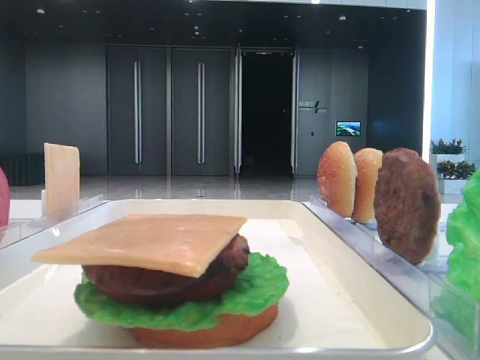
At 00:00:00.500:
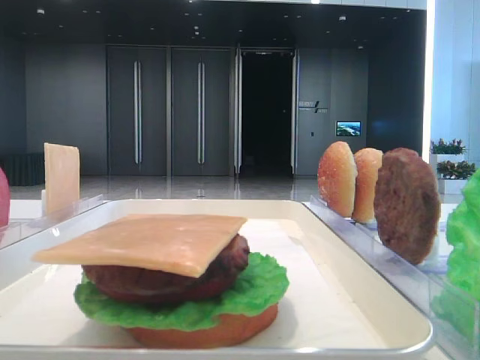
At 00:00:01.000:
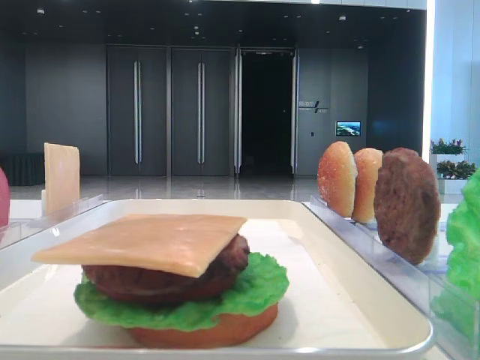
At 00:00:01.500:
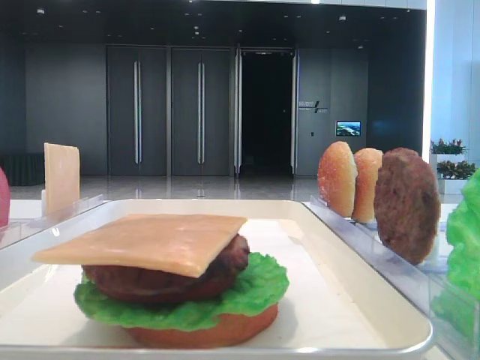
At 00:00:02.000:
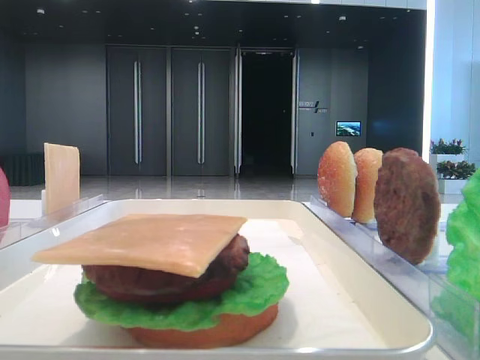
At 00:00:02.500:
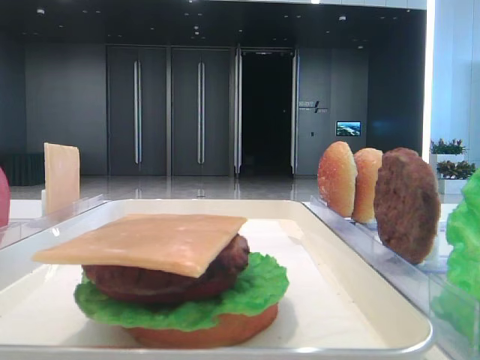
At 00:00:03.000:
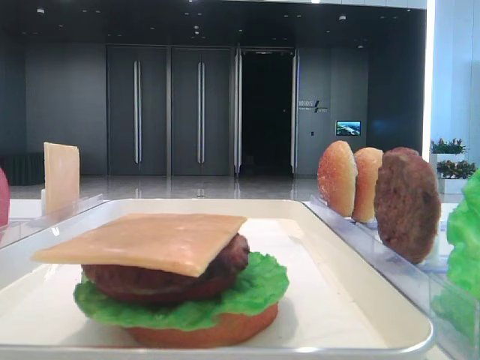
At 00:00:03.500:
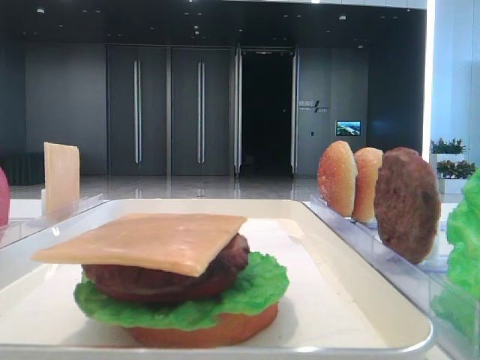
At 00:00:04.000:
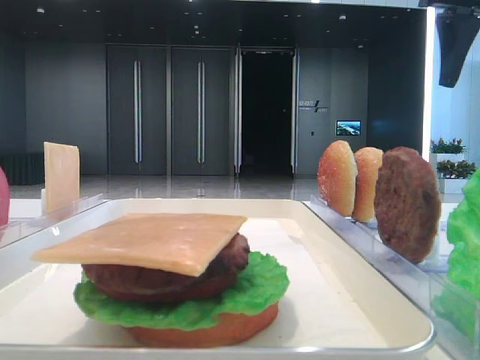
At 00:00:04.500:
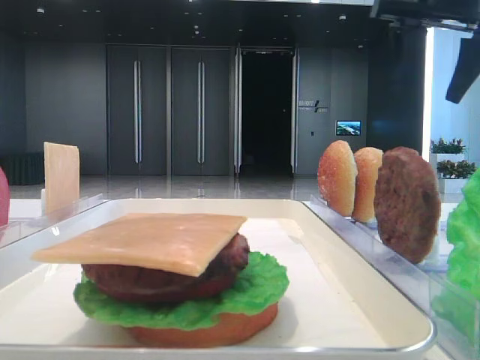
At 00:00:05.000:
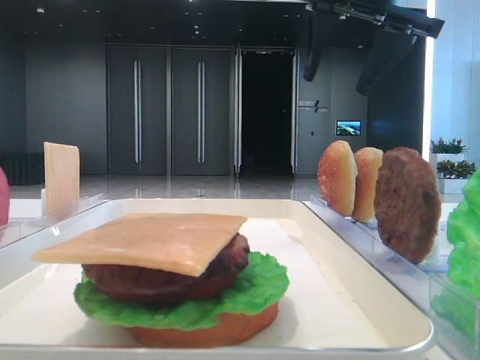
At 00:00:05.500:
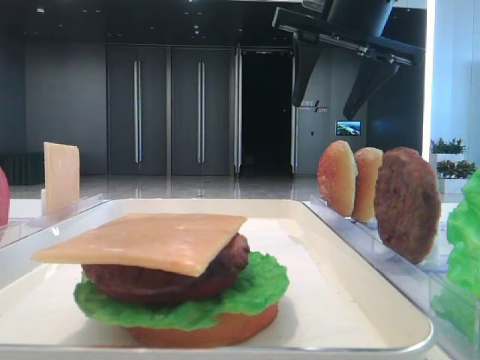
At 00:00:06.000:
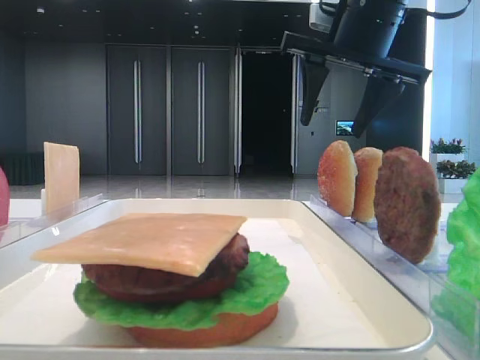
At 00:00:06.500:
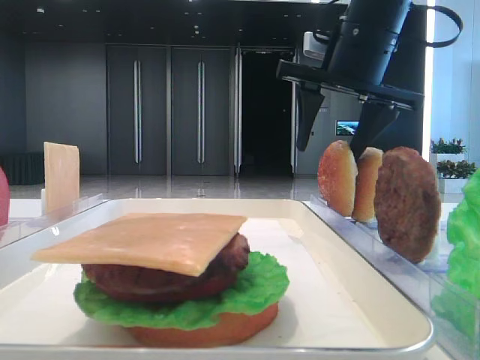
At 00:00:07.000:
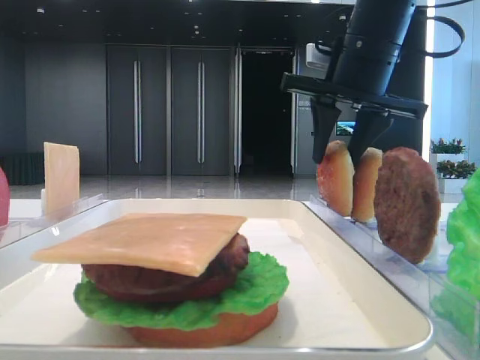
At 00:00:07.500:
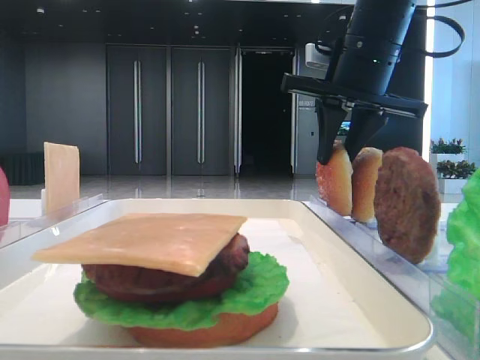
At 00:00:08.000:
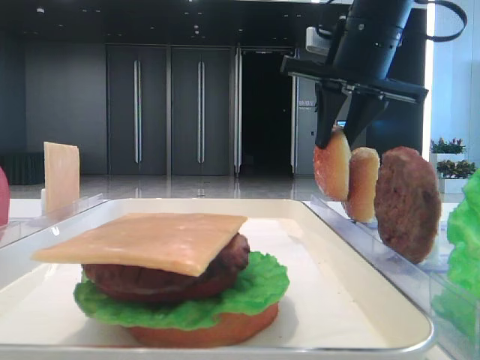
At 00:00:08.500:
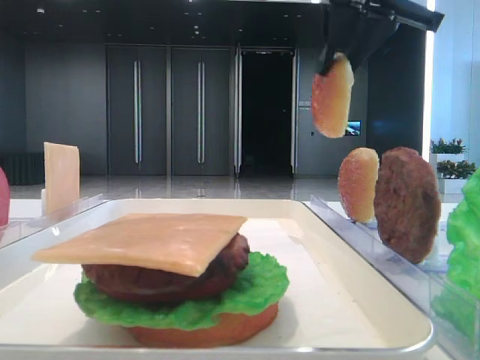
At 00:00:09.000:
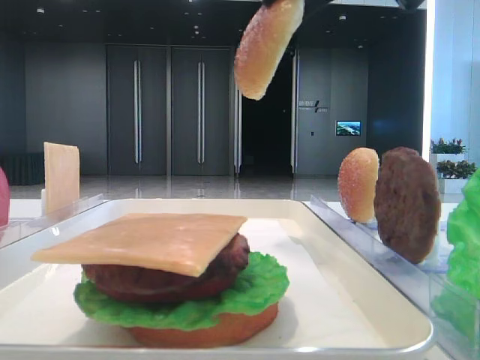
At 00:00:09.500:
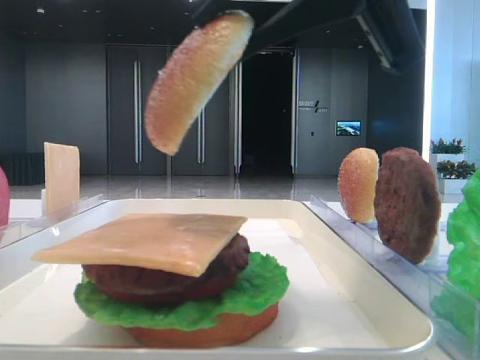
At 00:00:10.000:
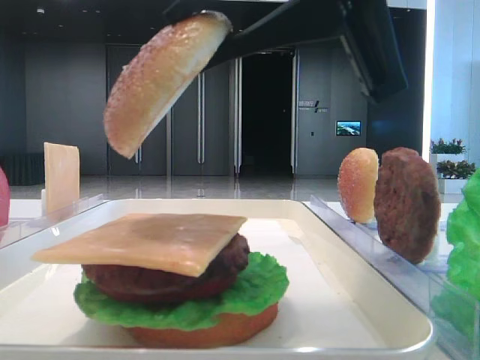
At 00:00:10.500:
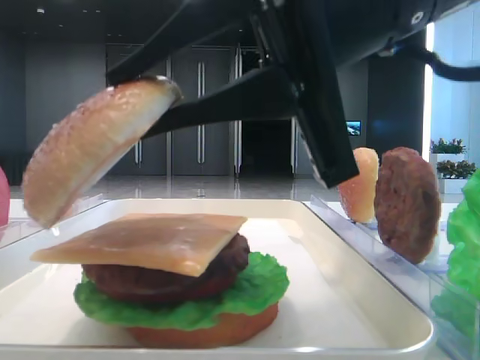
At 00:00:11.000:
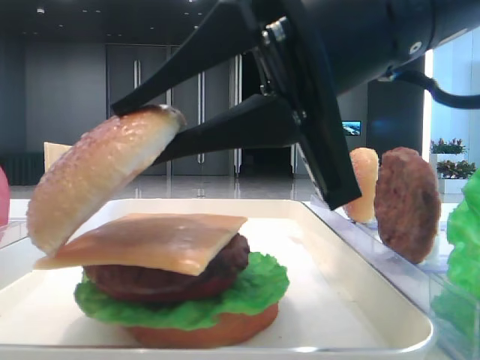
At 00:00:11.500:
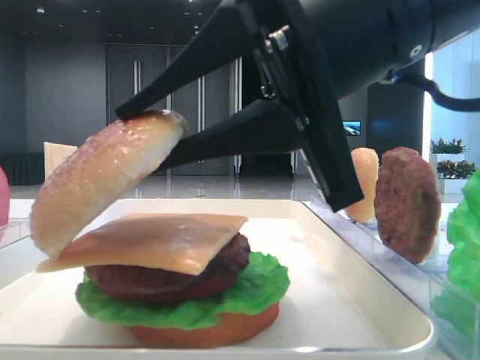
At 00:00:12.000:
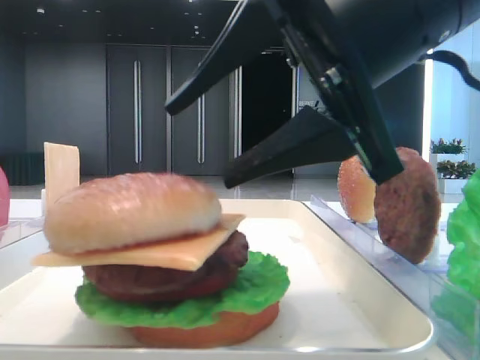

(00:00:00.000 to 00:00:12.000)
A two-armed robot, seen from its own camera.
Step, 00:00:00.000 - 00:00:07.500: Pick up the top bread slice with the right hand.
Step, 00:00:08.000 - 00:00:11.500: Place the top bread slice on the cheese with the right hand.
00:00:02.000 - 00:00:04.000: The right gripper travels forward by roughly 40 cm.
00:00:04.000 - 00:00:06.000: The right gripper shifts approximately 10 cm to the left.
00:00:06.000 - 00:00:08.000: The right gripper closes.
00:00:08.000 - 00:00:10.000: The right gripper moves backward, about 20 cm.
00:00:10.000 - 00:00:12.000: The right gripper opens up.

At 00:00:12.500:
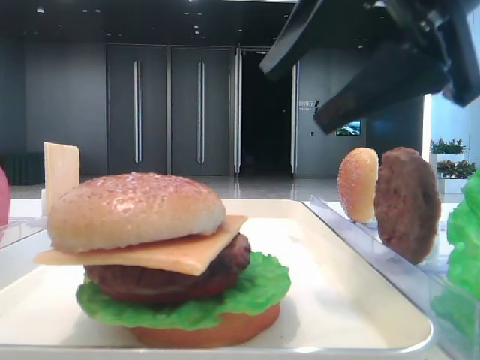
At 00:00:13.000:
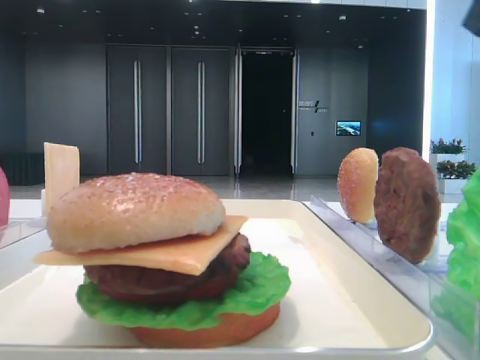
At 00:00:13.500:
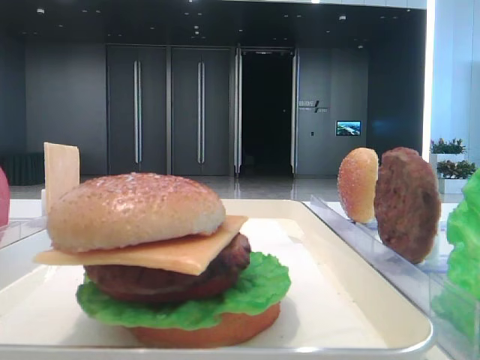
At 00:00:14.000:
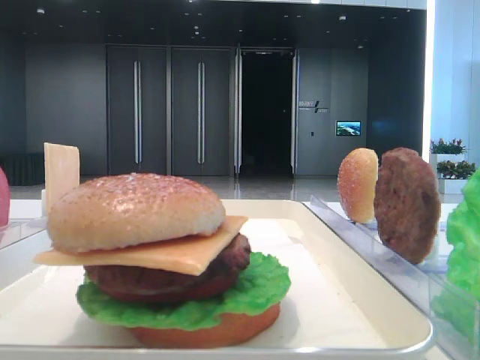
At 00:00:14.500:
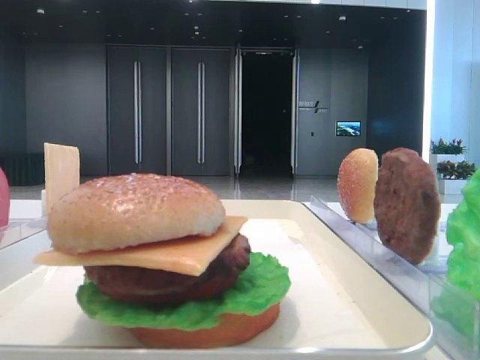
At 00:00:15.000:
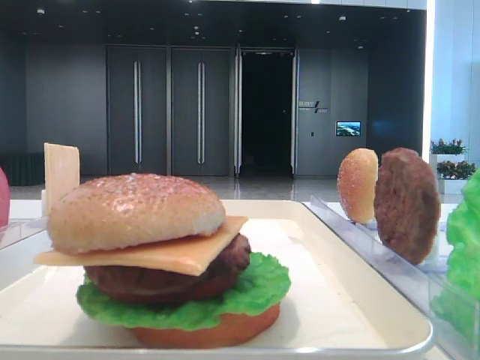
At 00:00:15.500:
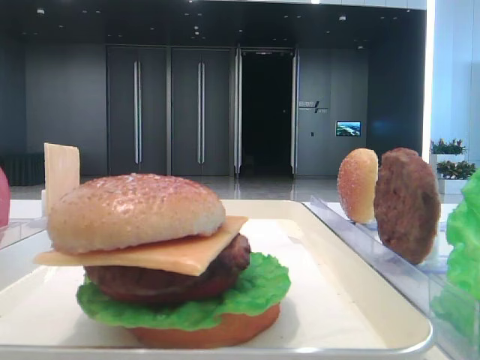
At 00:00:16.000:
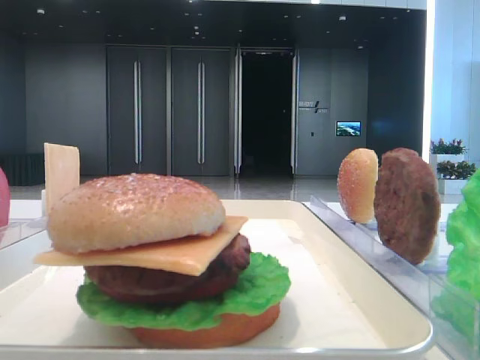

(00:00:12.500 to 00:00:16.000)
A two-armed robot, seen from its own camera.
00:00:12.500 - 00:00:14.500: The right gripper heads backward and to the right, covering roughly 25 cm.

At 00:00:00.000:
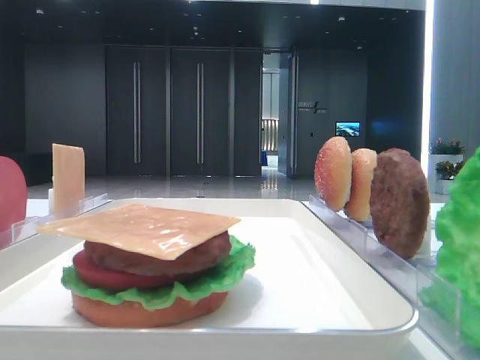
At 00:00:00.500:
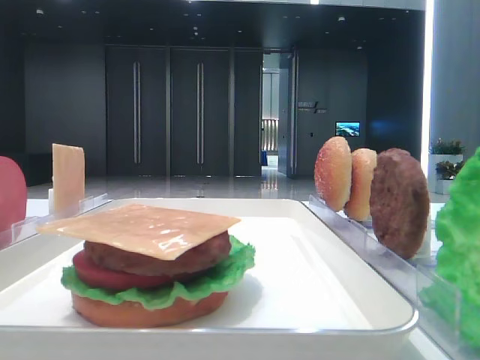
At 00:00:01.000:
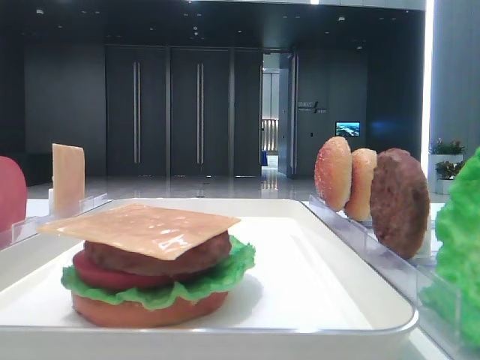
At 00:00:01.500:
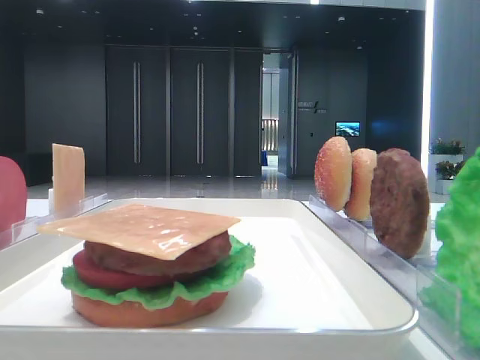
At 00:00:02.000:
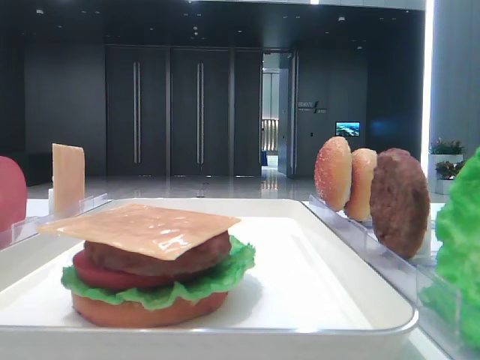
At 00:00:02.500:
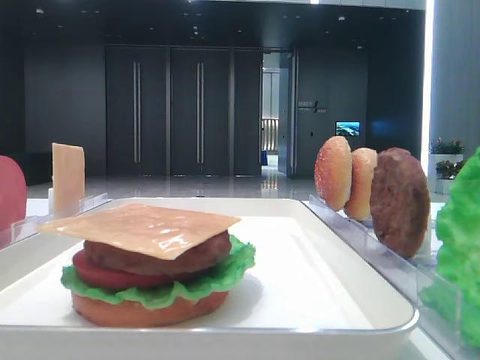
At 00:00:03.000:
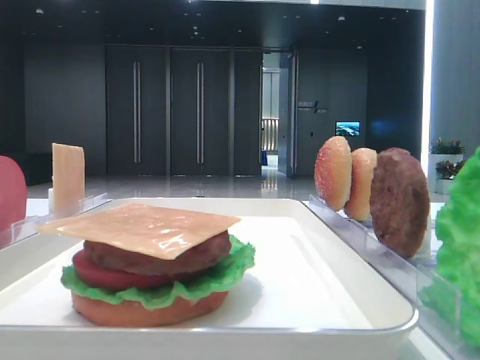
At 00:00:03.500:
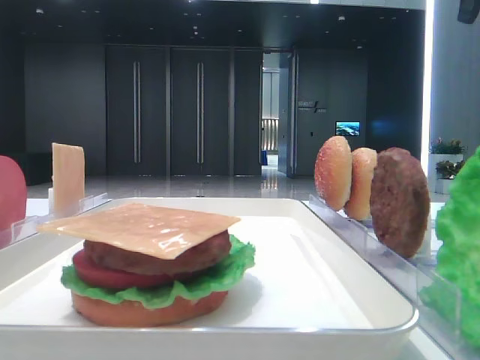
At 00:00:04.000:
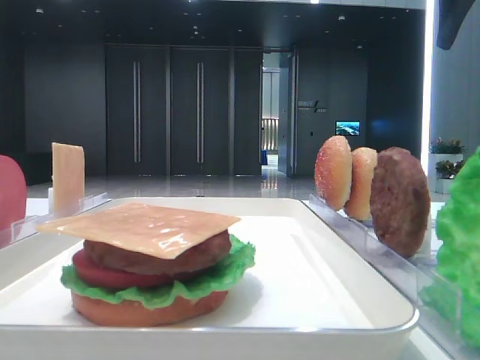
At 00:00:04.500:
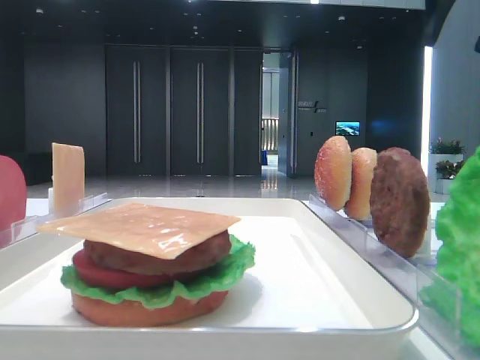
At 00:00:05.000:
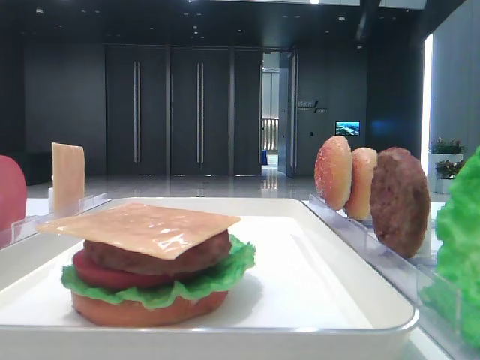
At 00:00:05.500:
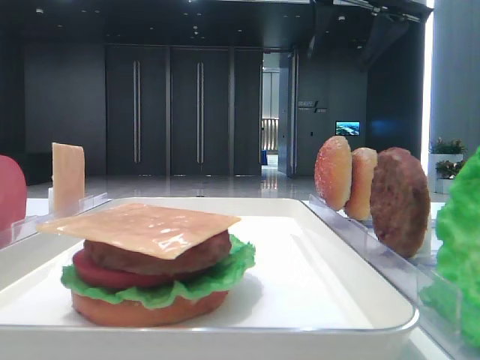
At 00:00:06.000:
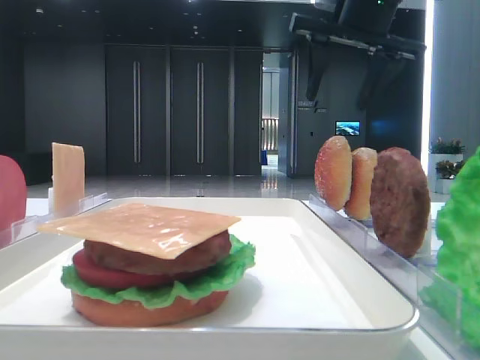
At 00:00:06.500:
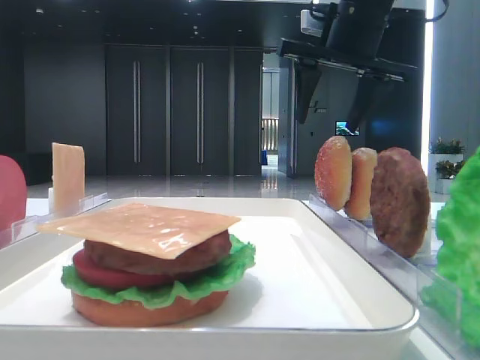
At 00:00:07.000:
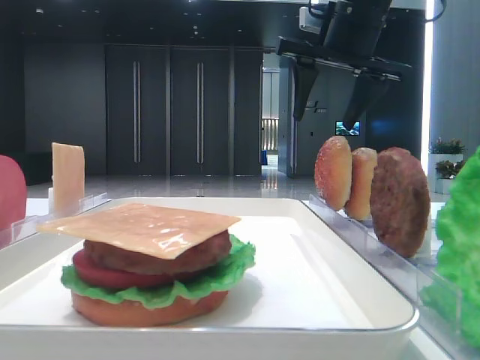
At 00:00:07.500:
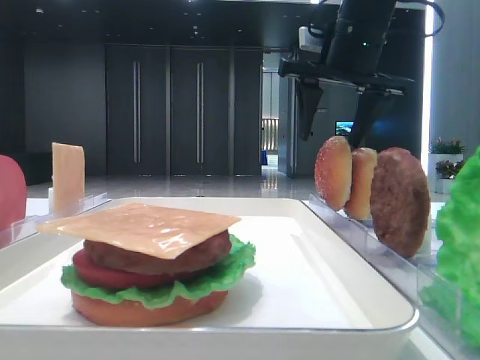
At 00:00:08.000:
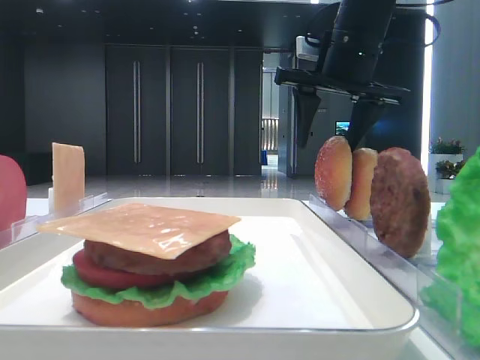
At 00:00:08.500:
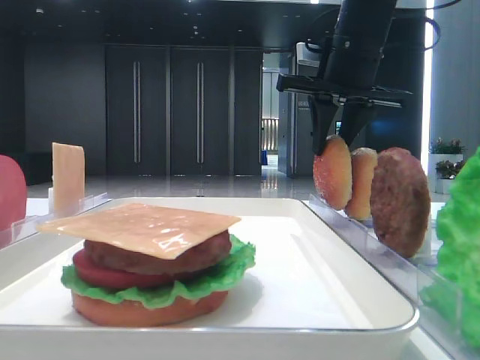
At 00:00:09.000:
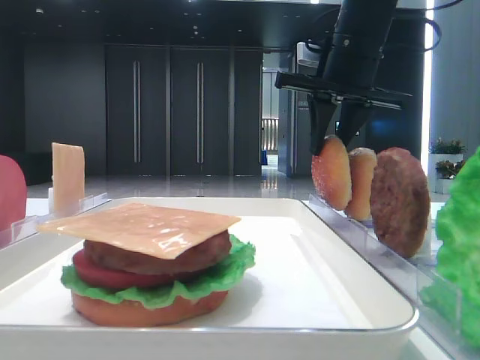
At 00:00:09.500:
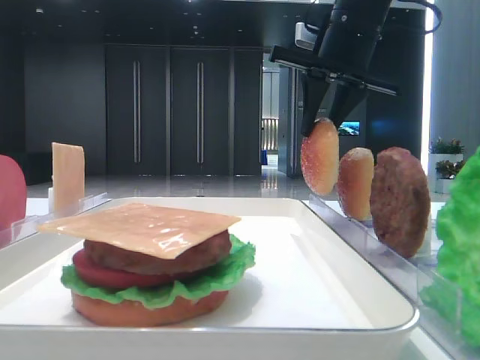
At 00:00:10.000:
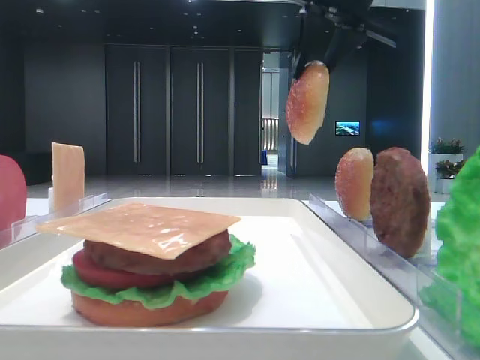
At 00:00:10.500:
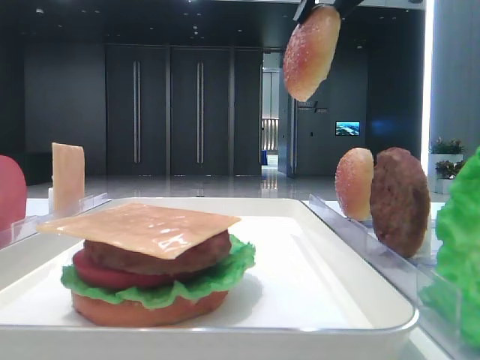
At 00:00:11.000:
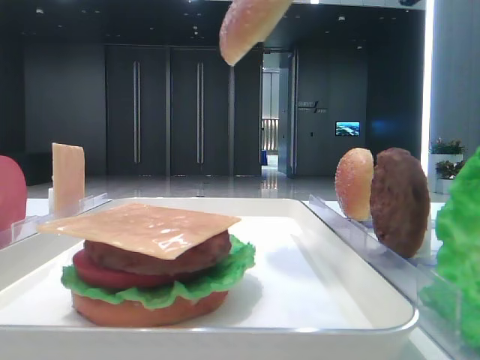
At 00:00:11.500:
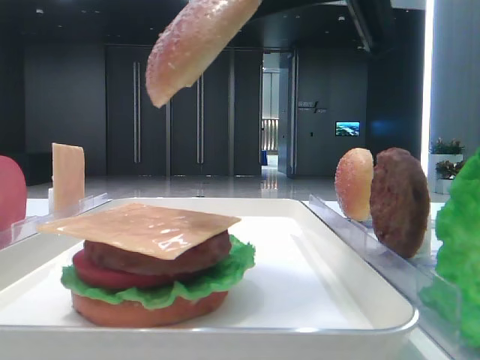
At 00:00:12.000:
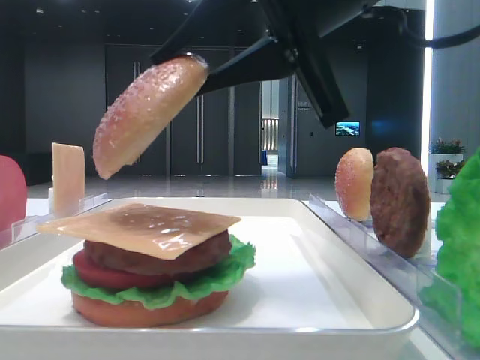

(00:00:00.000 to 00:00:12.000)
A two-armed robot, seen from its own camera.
Step, 00:00:00.000 - 00:00:08.500: Pick up the top bread slice with the right hand.
00:00:02.000 - 00:00:04.000: The right gripper goes approximately 35 cm forward.
00:00:04.000 - 00:00:06.000: The right gripper travels to the left by approximately 15 cm.
00:00:06.000 - 00:00:08.000: The right gripper shifts roughly 5 cm downward.
00:00:08.000 - 00:00:10.000: The right gripper travels upward by about 5 cm, and closes its fingers.
00:00:10.000 - 00:00:12.000: The right gripper shifts about 20 cm backward and downward.
